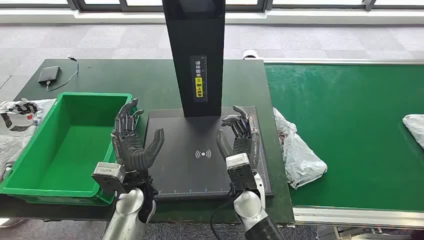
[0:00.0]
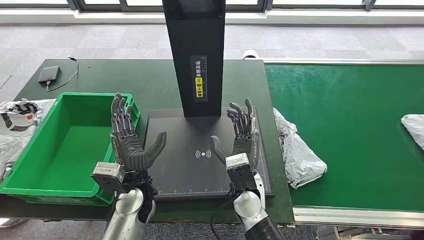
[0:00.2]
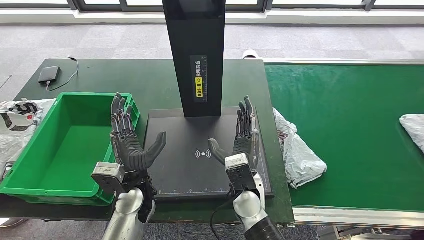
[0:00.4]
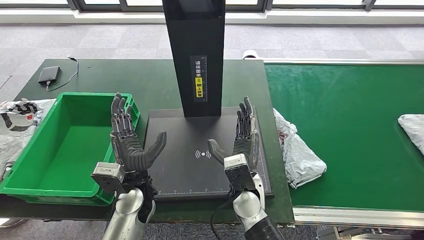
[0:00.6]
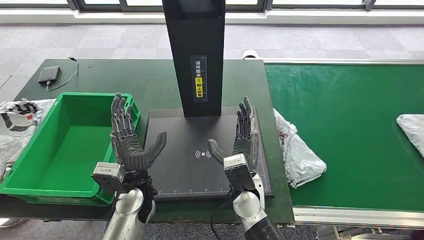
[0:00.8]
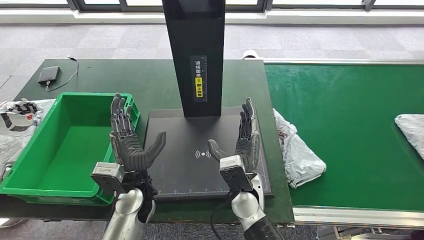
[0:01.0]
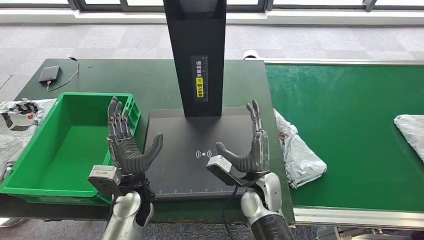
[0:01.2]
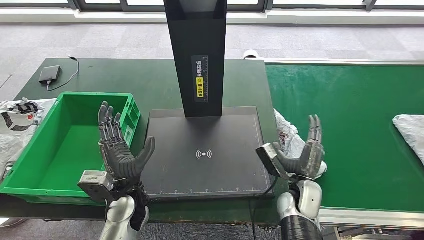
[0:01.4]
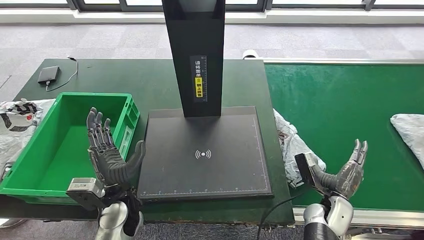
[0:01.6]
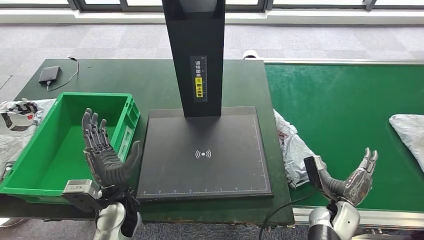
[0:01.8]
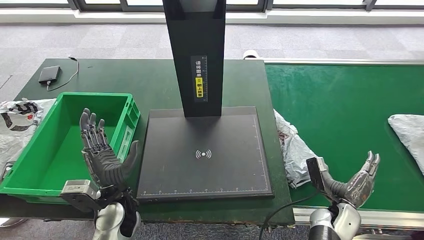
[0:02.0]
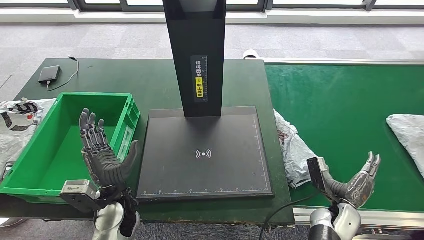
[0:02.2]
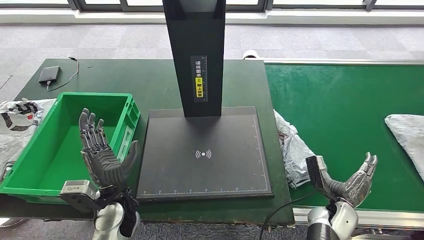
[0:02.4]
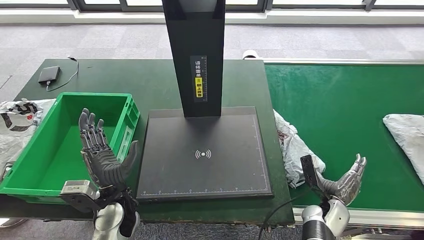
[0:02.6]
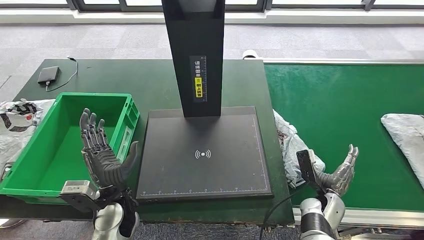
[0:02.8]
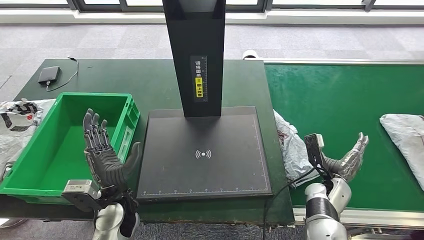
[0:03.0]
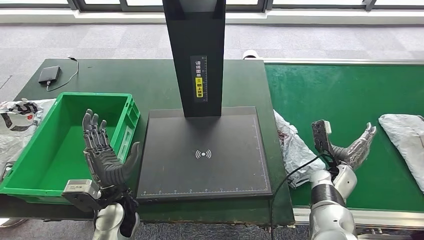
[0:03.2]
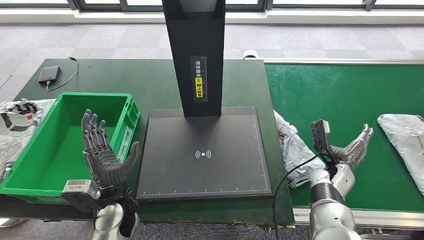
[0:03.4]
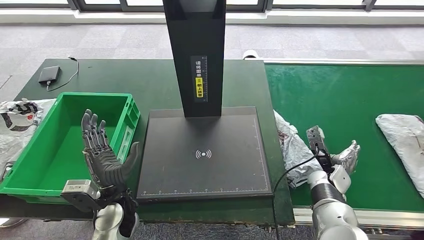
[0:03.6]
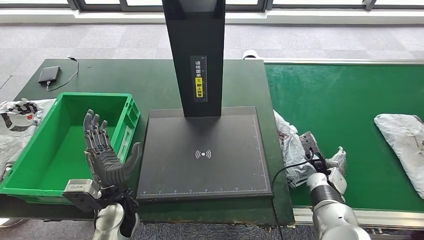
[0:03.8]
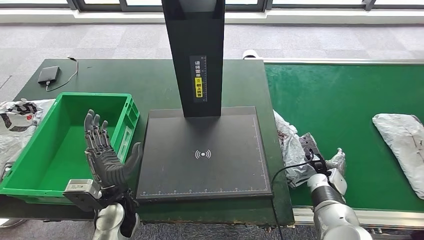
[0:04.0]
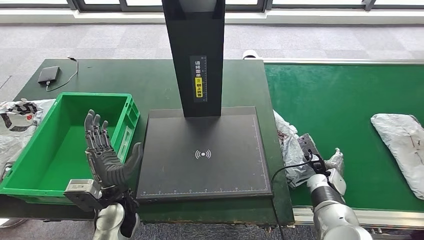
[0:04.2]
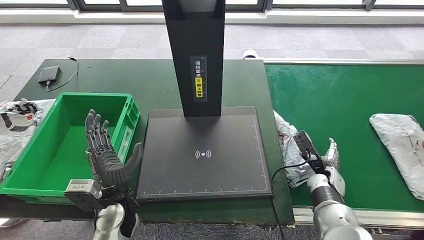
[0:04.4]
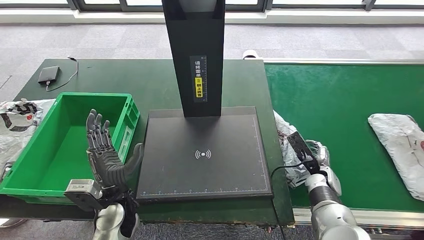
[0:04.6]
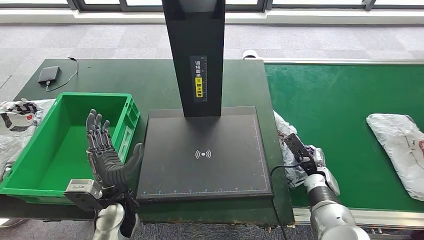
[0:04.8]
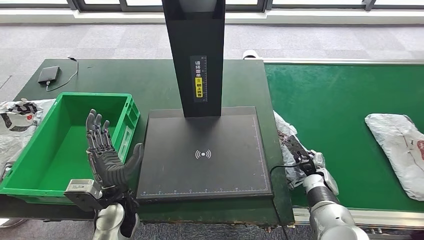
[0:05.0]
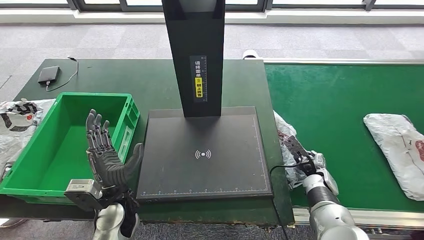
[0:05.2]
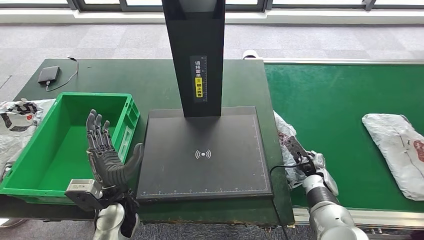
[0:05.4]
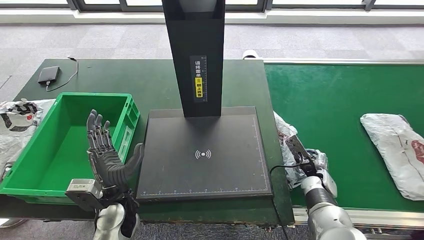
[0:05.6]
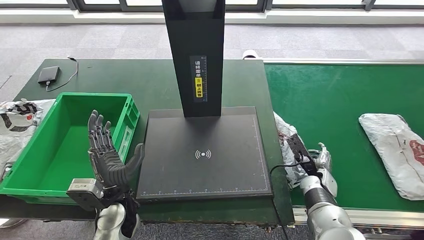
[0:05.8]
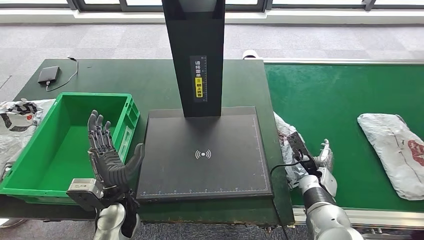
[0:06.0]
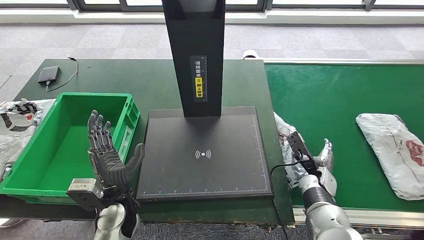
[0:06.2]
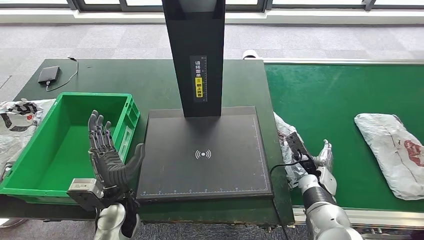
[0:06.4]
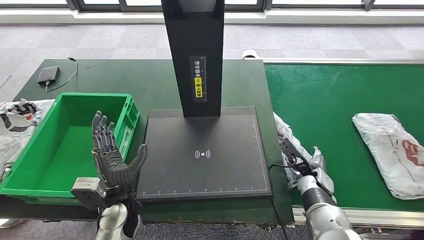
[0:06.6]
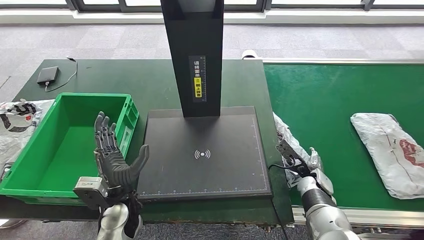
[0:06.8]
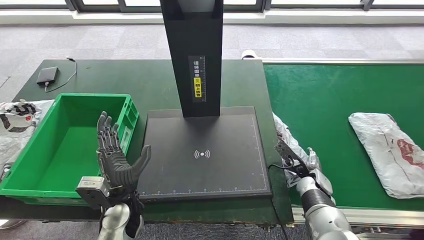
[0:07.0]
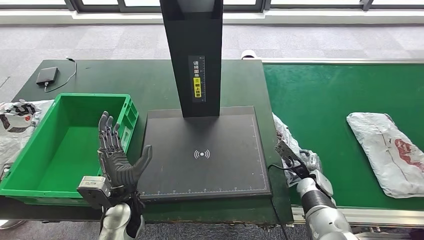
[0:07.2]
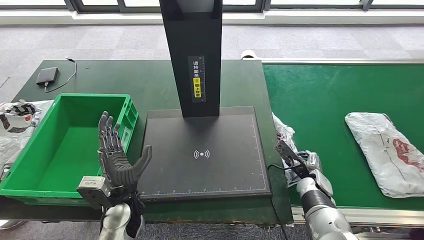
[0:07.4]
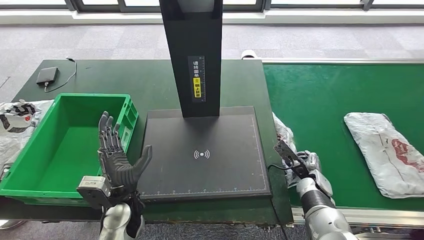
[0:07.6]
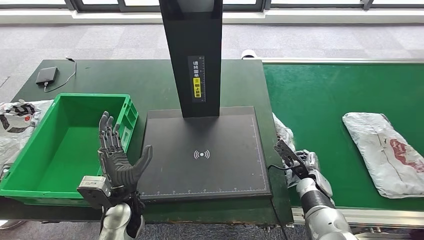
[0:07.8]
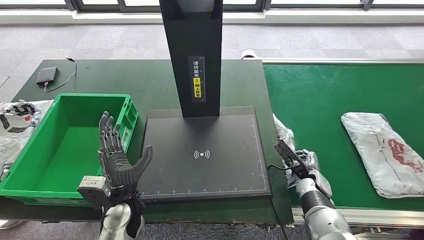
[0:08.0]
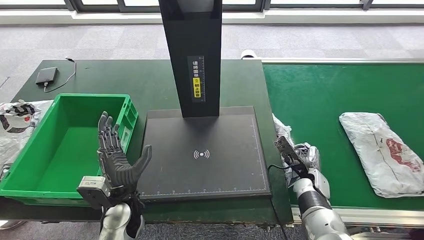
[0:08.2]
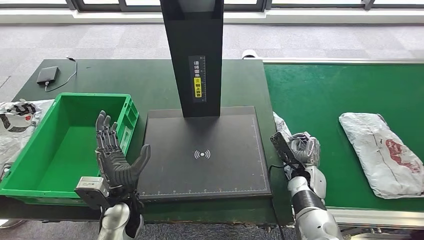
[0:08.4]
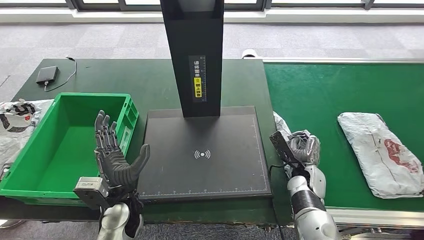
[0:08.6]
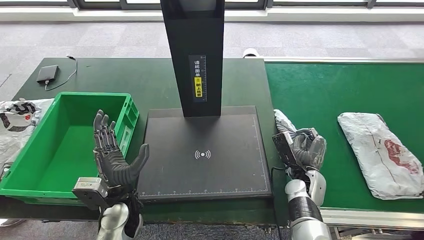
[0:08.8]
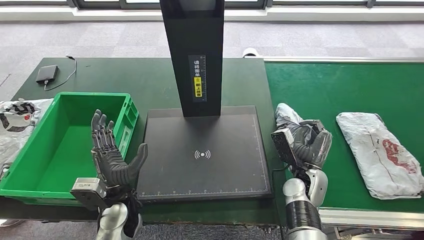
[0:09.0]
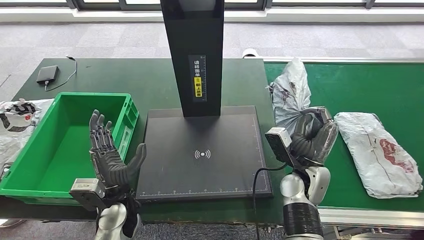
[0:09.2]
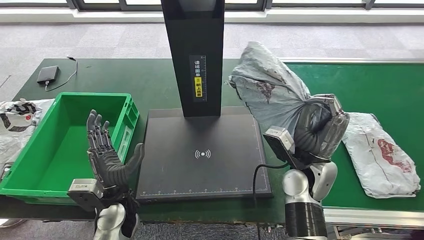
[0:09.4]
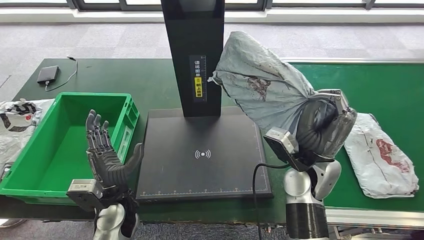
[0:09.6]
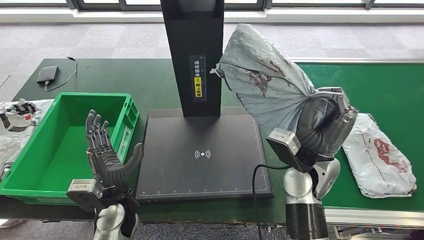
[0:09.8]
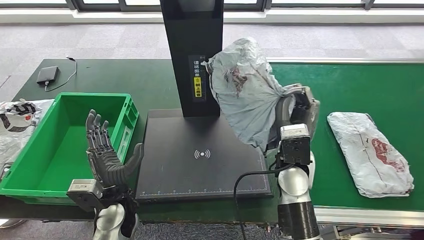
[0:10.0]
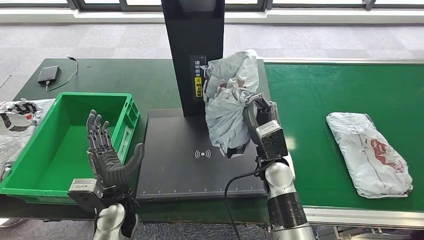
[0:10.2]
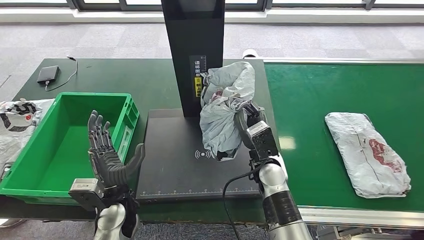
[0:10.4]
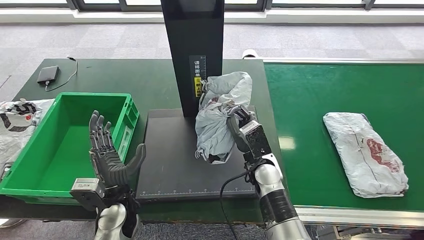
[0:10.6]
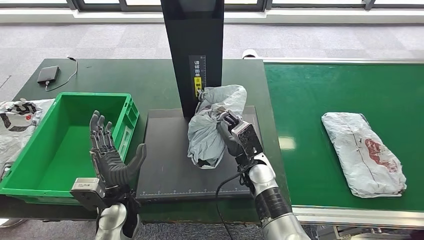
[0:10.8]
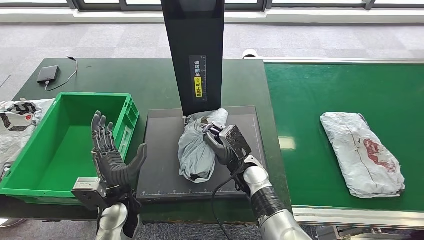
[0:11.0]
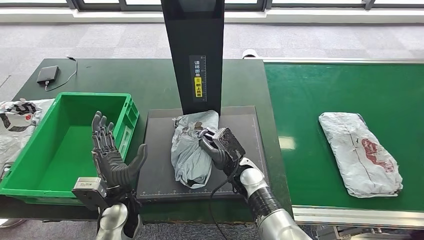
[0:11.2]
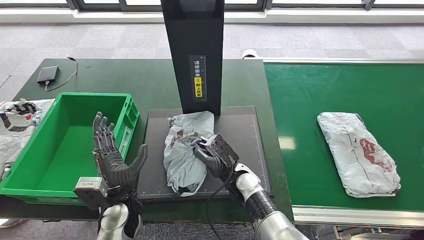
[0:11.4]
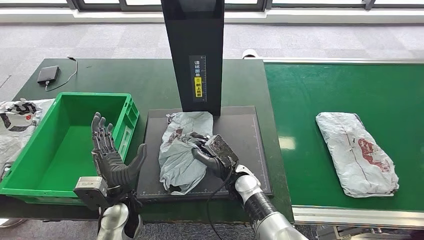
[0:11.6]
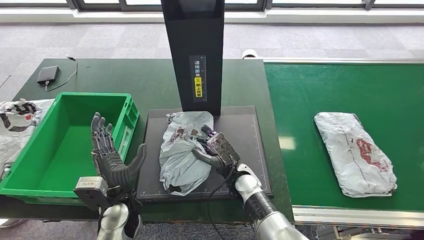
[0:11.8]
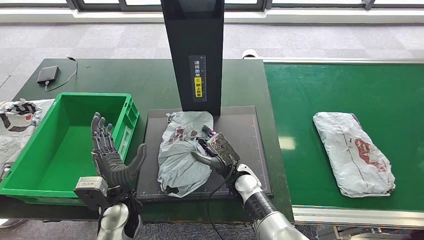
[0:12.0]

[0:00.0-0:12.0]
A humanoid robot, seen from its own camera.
Step, 0:00.0 to 0:09.4: Take the parcel off the conveyor belt.
Step, 0:09.6 to 0:11.4: Place the parcel onto the inbound machine.
0:01.6 to 0:03.0: The right hand goes roughly 5 cm forward.
0:04.4 to 0:07.6: There are only small adjustments of the hands.
0:10.4 to 0:12.0: The right hand goes some 5 cm downward.

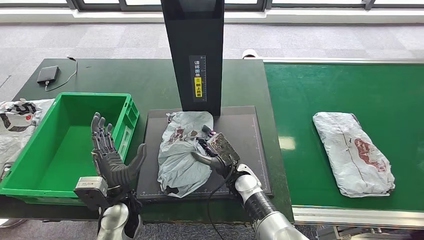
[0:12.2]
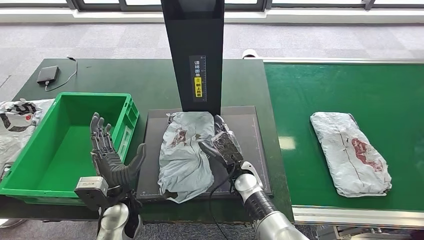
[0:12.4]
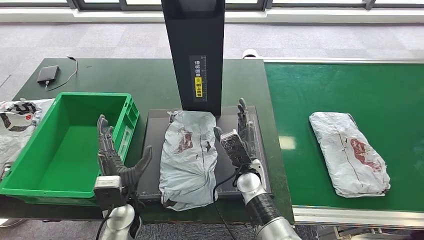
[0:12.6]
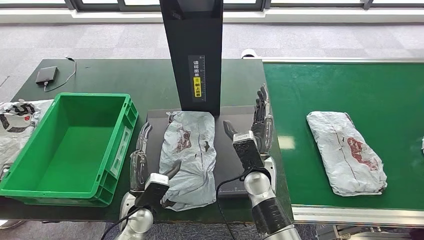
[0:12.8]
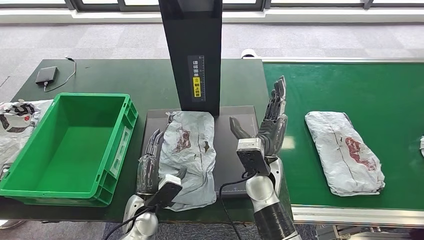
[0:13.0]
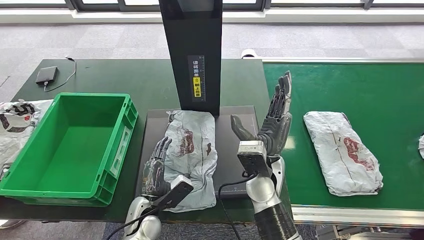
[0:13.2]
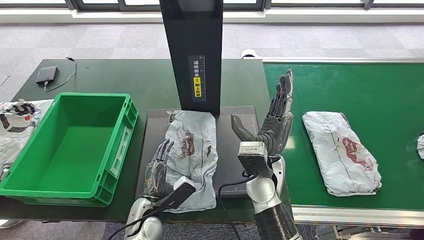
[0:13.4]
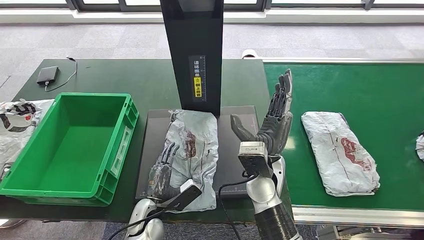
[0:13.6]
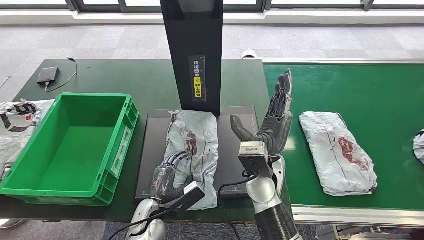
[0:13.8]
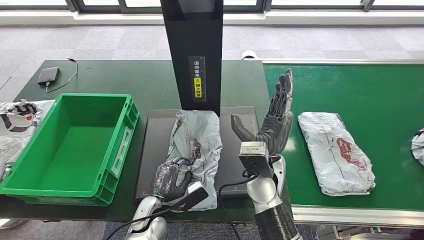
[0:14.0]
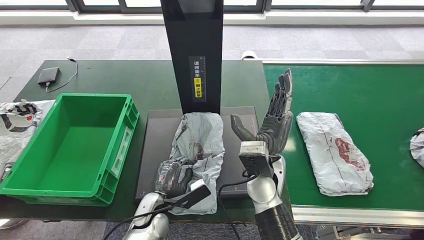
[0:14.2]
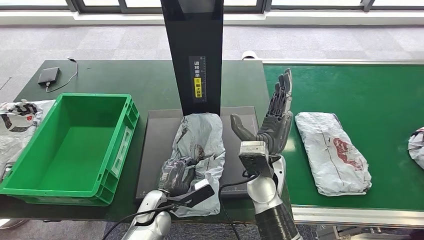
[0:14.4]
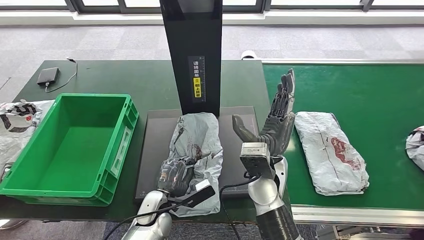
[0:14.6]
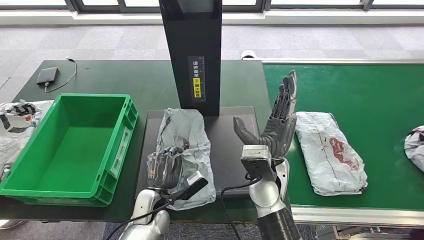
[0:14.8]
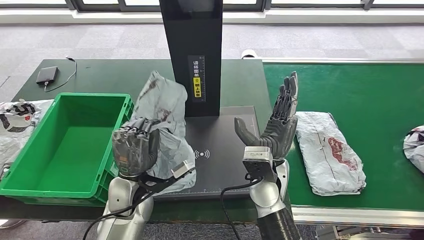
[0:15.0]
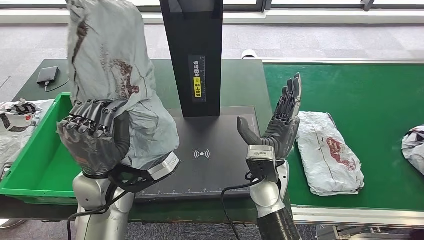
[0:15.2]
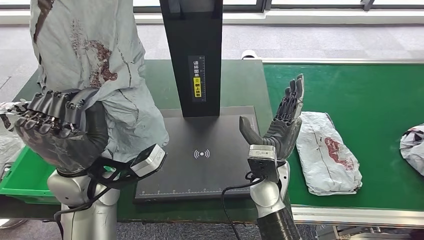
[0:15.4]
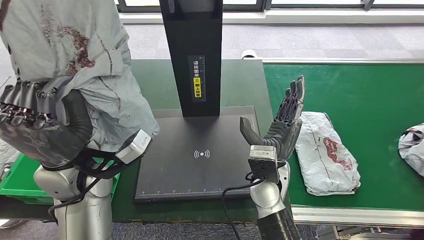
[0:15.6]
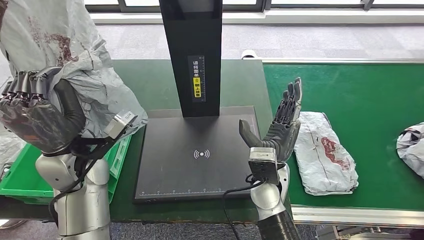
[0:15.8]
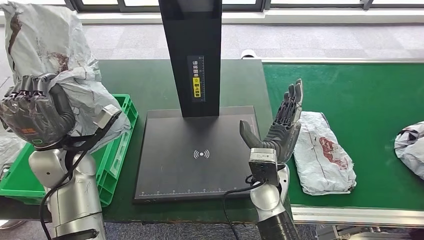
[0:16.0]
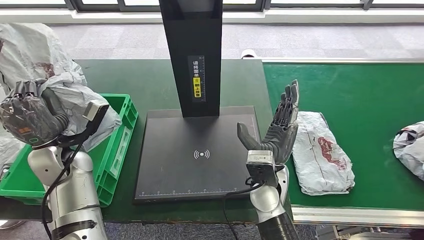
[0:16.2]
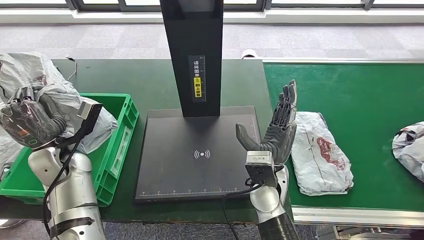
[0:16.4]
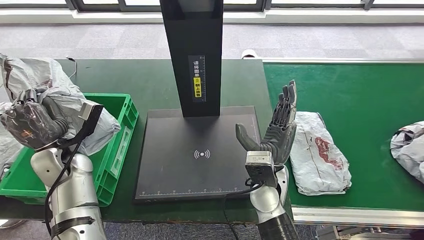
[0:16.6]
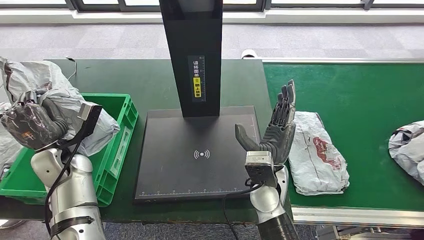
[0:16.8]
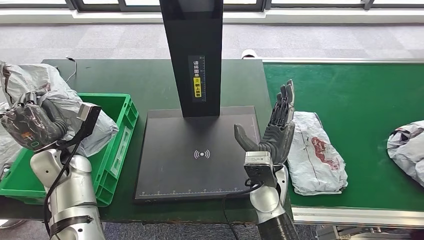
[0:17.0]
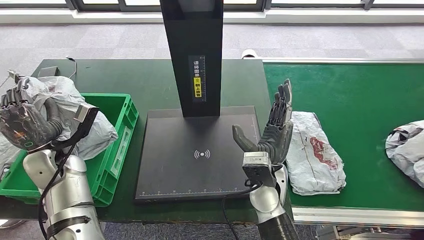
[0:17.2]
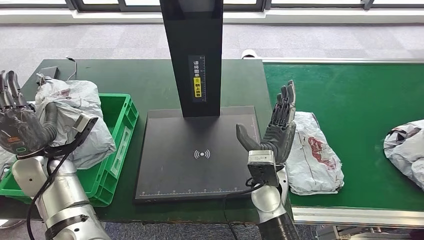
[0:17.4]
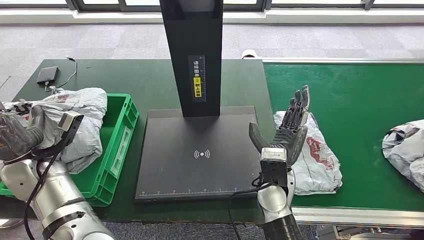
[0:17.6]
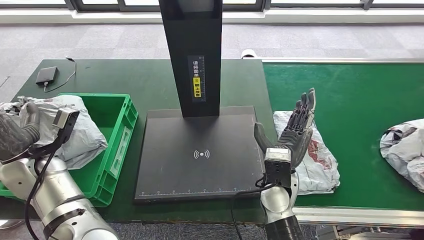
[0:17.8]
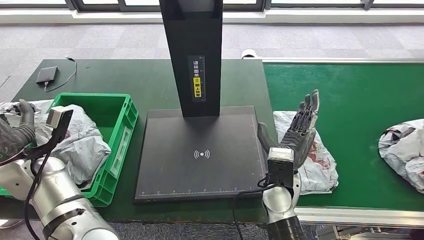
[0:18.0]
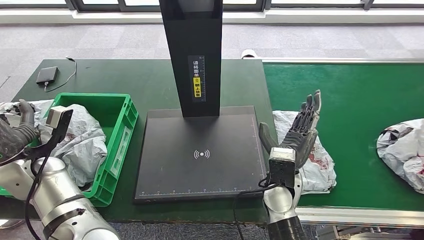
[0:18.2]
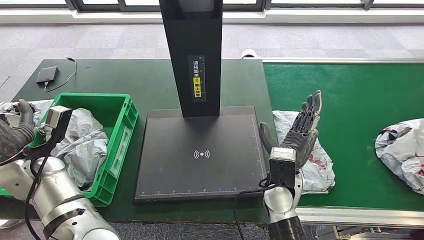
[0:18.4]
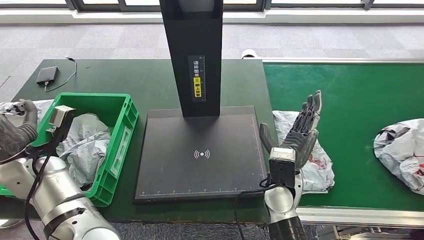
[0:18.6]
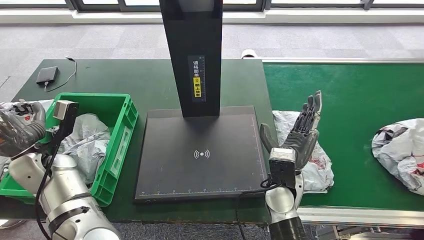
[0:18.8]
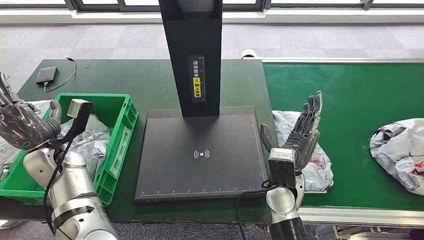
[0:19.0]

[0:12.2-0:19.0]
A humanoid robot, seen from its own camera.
Step, 0:12.2 to 0:13.2: Pick up the parcel from the inbound machine.
0:12.2 to 0:13.6: The right hand is displaced upward by roughly 10 cm; the left hand goes approximately 10 cm downward.
0:13.6 to 0:15.0: The left hand heads upward and forward, covering roughly 10 cm.
